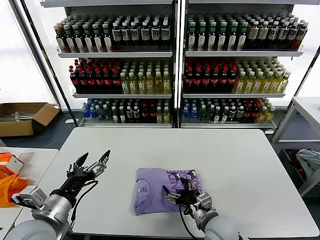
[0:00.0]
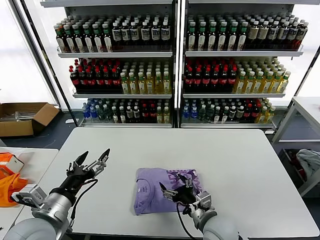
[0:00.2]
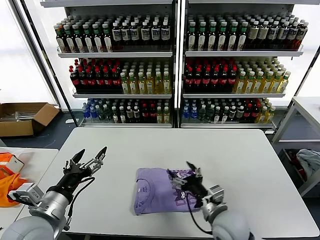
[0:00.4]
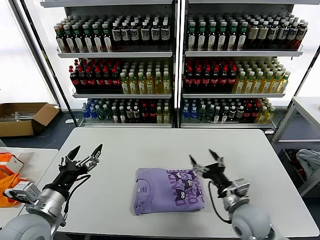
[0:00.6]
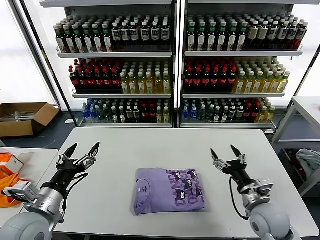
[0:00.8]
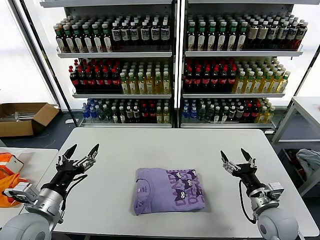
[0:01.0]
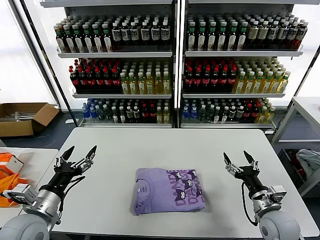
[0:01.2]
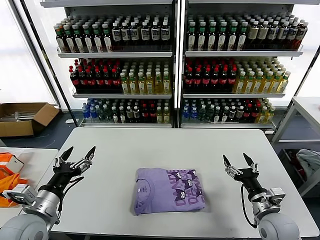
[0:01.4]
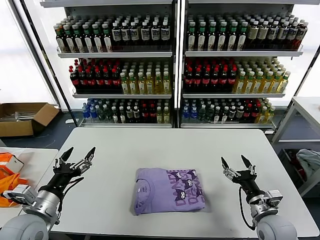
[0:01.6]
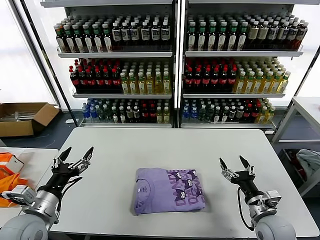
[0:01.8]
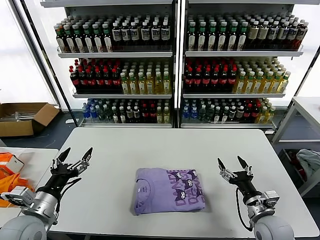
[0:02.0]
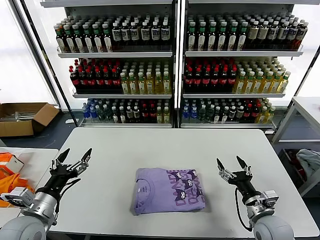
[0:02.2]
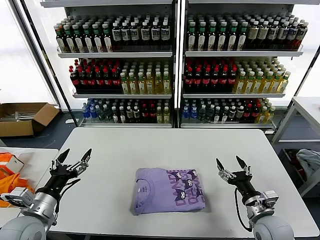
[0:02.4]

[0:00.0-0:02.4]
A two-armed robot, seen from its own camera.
Task of the whole recording: fold and organize the clothes.
0:00.0 to 0:01.2: The left gripper moves approximately 5 cm. Meanwhile the right gripper moves to the right, roughly 15 cm.
0:01.2 to 0:02.4: The grippers make only small movements.
